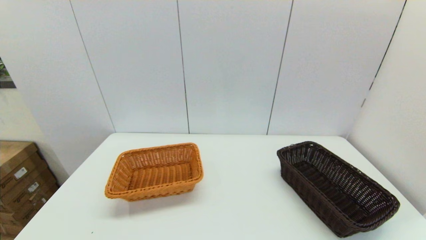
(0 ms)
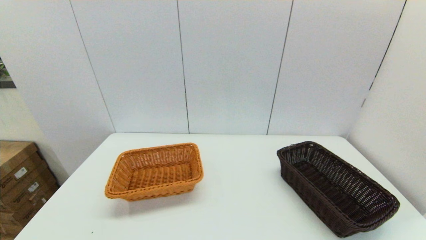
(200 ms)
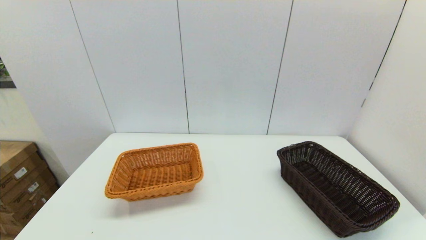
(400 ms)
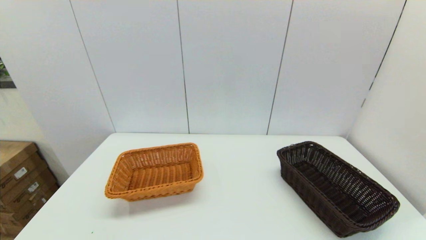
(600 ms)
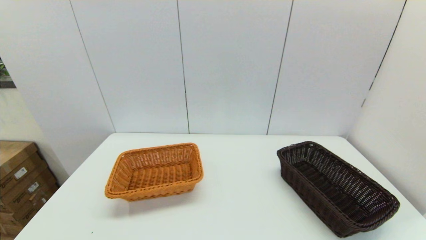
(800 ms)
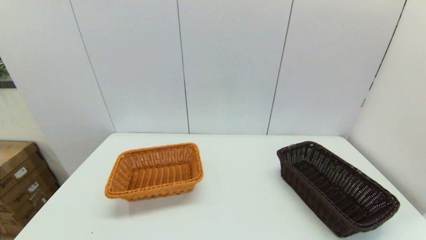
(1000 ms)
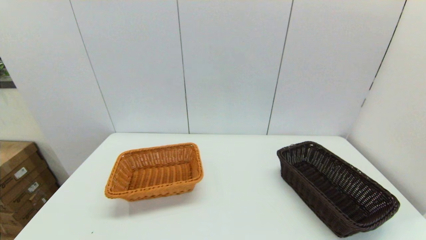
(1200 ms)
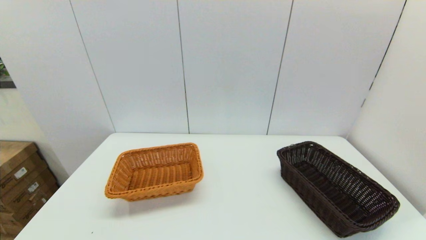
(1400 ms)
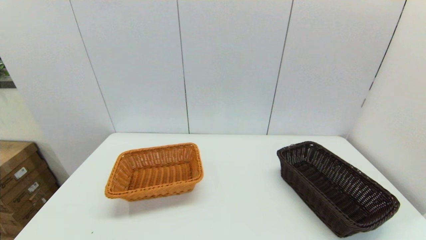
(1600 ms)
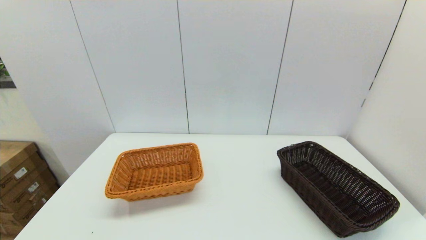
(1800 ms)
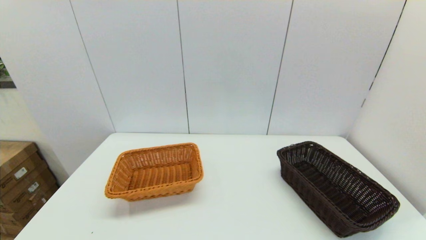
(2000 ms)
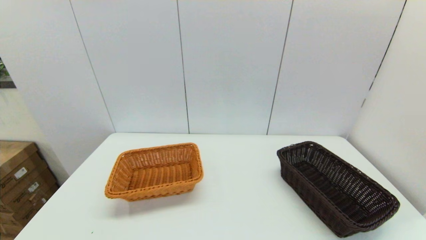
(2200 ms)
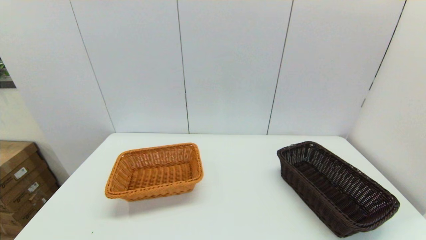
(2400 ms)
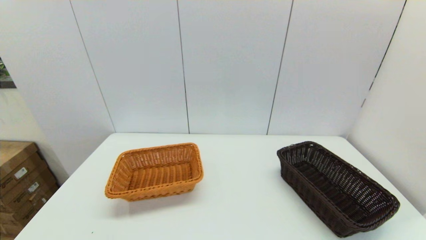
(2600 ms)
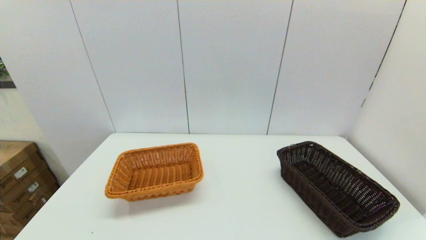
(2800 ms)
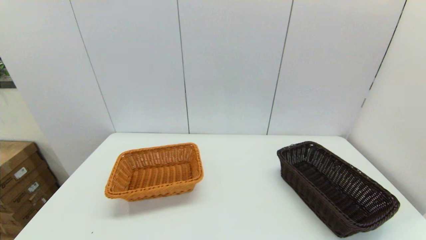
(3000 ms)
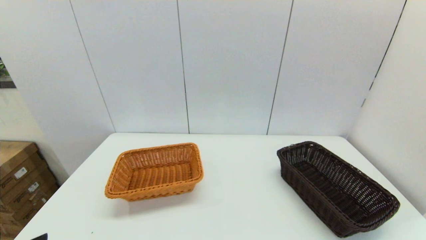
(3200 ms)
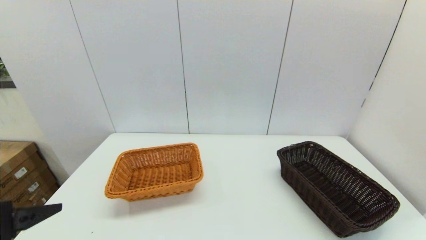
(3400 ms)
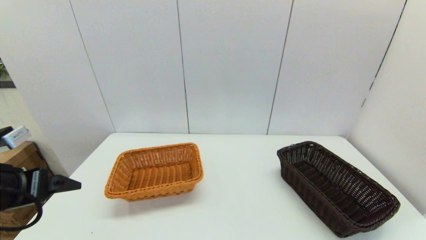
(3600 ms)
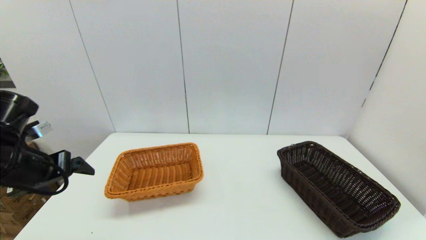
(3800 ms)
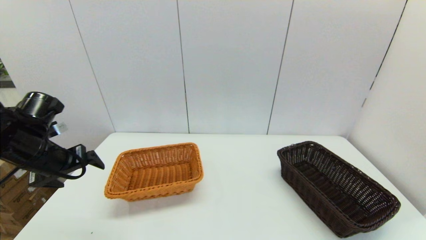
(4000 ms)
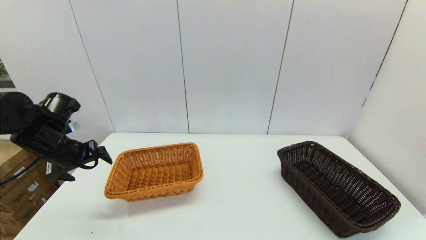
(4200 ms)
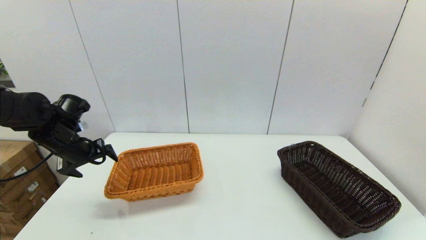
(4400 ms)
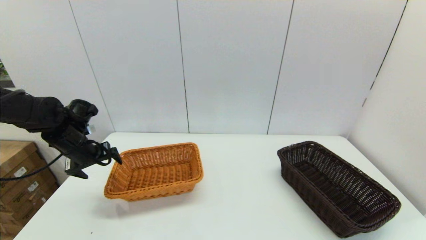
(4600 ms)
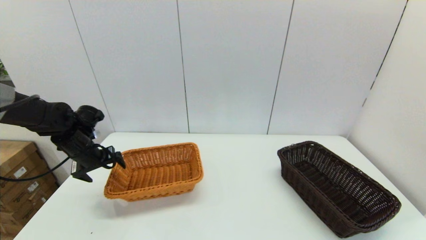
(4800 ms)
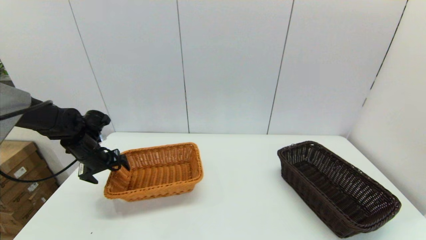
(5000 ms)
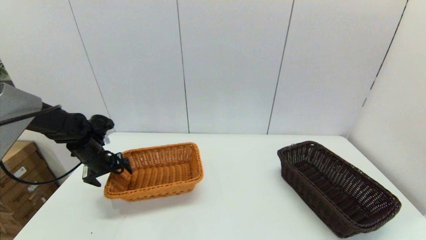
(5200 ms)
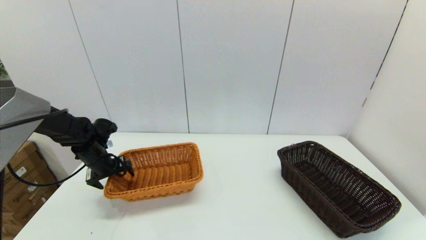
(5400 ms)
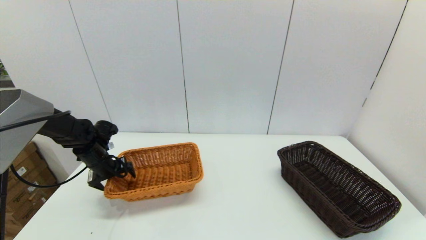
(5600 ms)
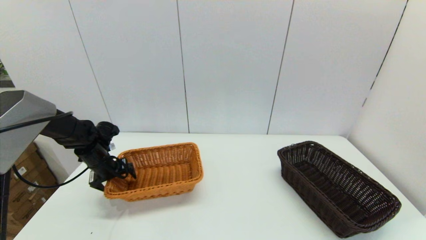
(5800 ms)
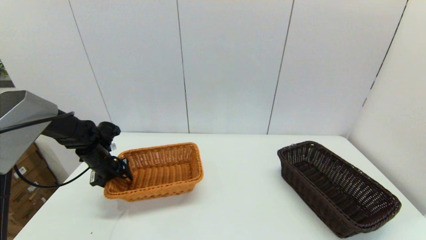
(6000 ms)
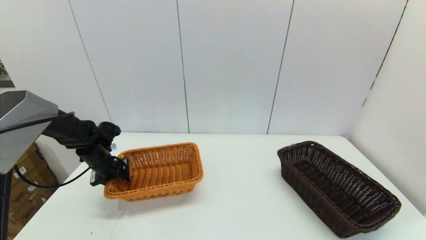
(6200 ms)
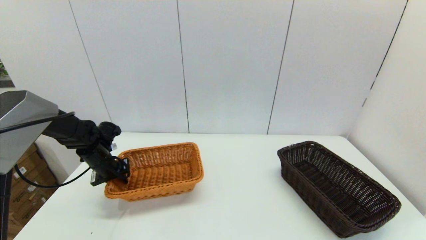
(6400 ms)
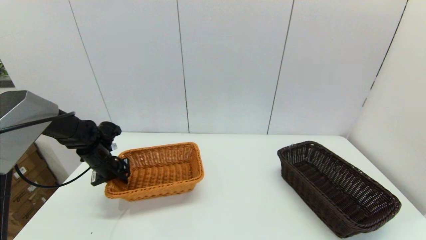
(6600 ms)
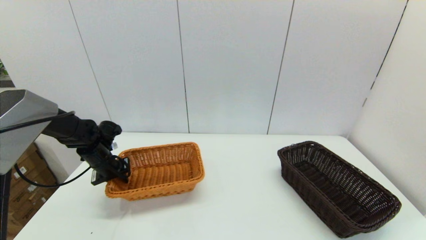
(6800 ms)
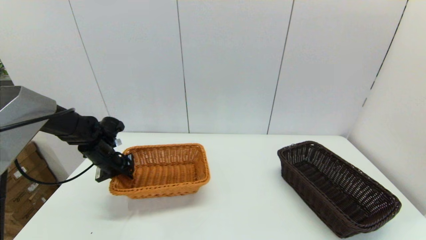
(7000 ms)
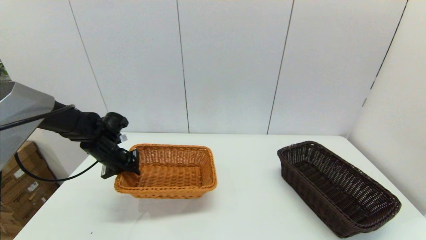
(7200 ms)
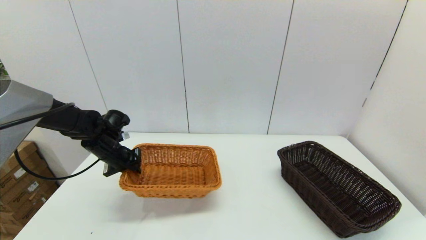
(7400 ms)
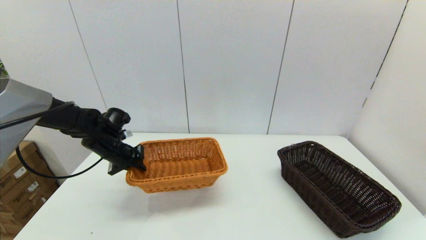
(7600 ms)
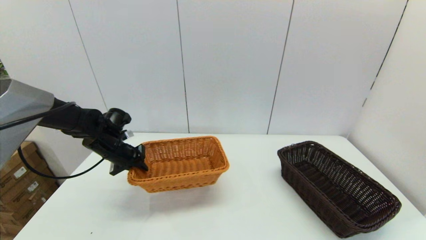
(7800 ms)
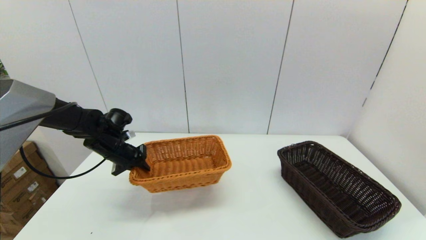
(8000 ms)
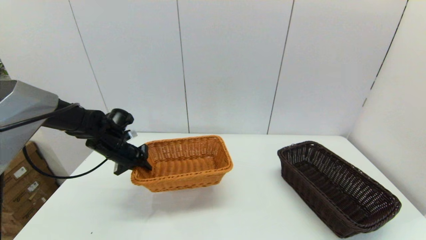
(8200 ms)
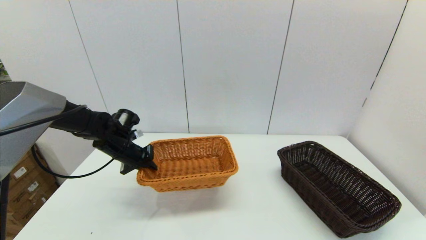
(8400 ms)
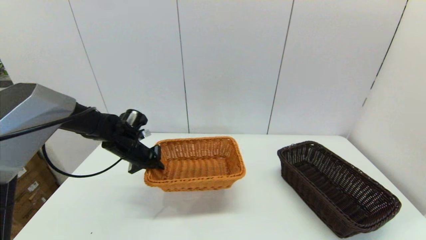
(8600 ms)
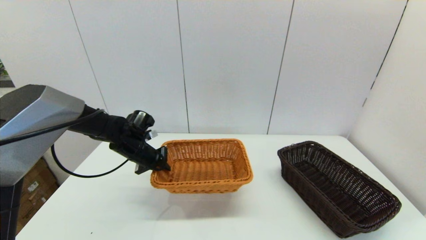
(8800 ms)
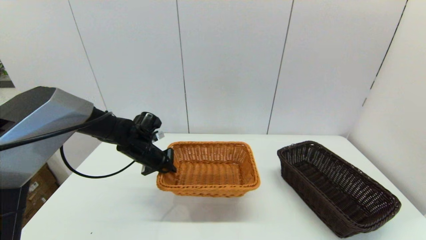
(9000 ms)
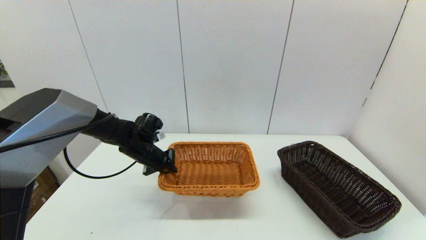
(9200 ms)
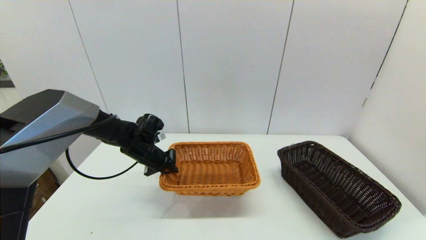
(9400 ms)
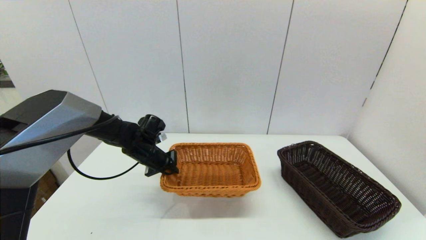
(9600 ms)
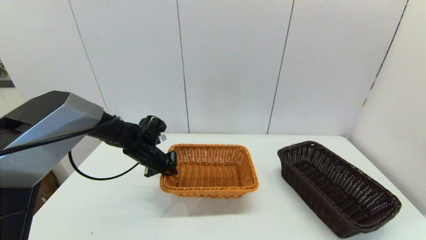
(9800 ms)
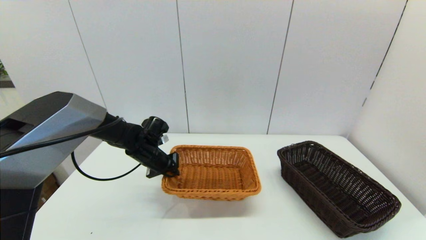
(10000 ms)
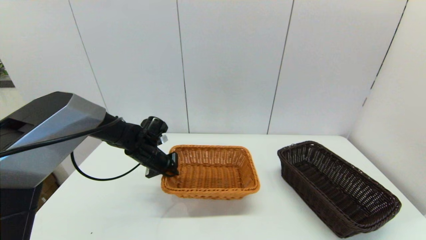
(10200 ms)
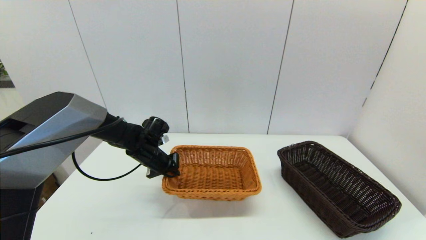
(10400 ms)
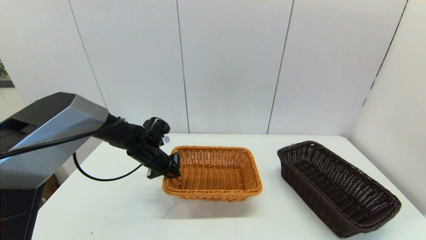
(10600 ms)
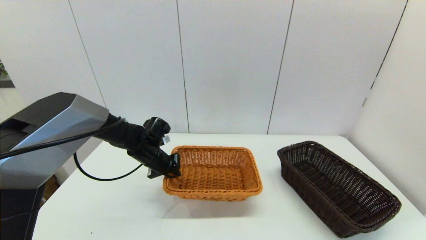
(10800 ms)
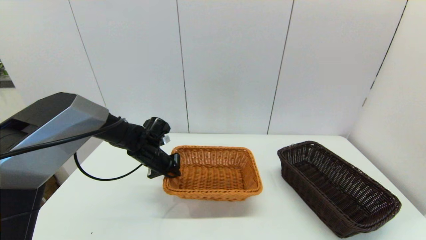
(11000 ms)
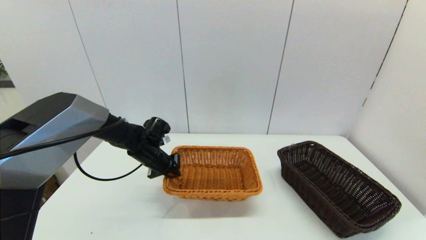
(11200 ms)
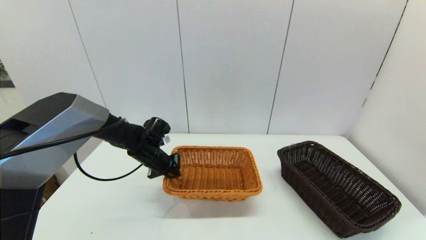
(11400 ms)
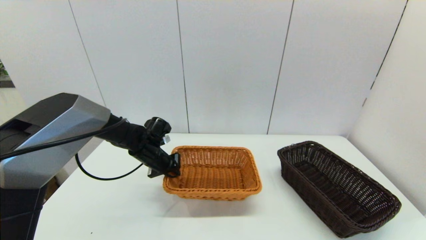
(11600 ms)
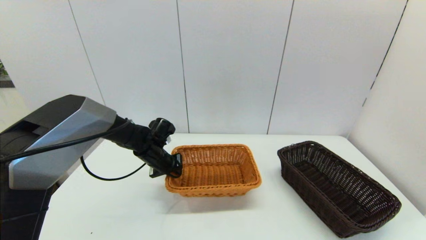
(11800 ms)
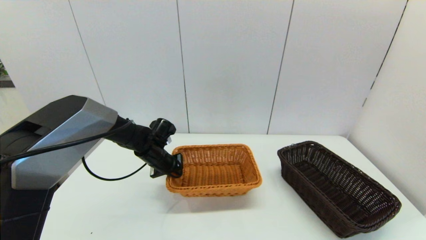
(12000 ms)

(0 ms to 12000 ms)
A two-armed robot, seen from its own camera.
Task of the whole recording: stack a basket on top of another basket.
Step, 3200 ms - 8400 ms: Grasp the light basket with the left gripper.
0 ms - 1600 ms: Both grippers stay put.
3000 ms - 4400 ms: The left gripper is displaced forward by approximately 35 cm.
4400 ms - 6000 ms: The left gripper goes roughly 10 cm downward, and closes its fingers.
6000 ms - 7600 ms: The left gripper shifts by approximately 5 cm, and closes.
7600 ms - 9000 ms: The left gripper travels to the right by roughly 10 cm.
9000 ms - 12000 ms: There are only small adjustments of the grippers.

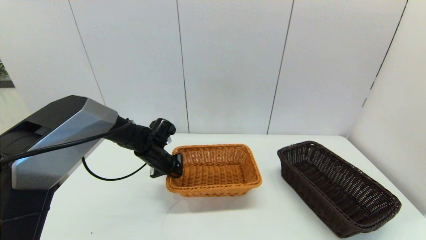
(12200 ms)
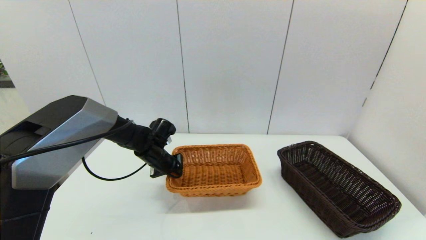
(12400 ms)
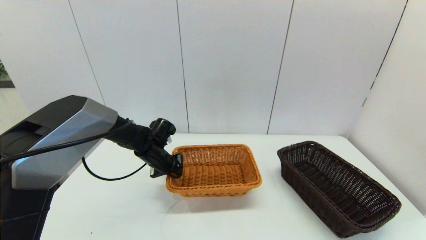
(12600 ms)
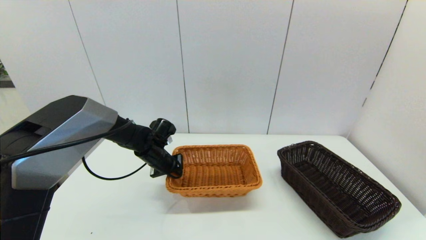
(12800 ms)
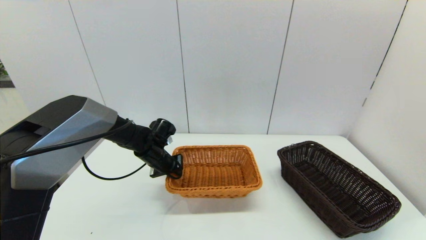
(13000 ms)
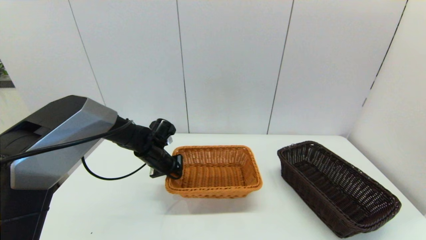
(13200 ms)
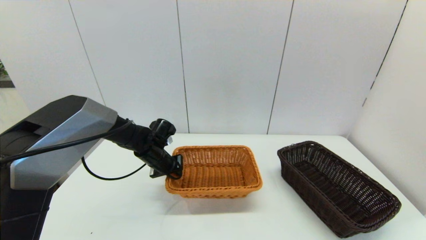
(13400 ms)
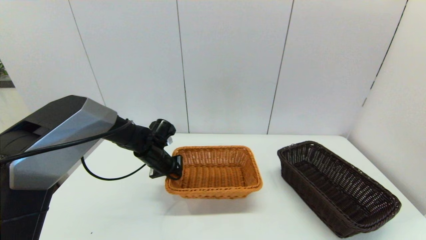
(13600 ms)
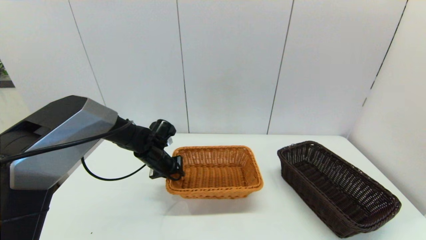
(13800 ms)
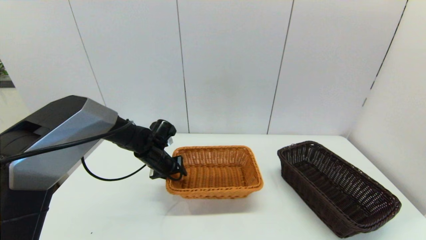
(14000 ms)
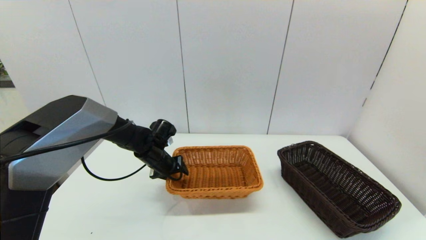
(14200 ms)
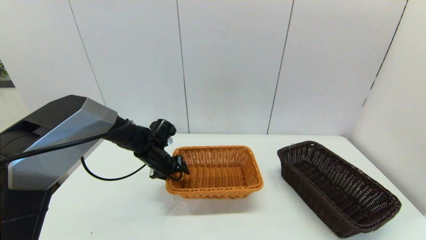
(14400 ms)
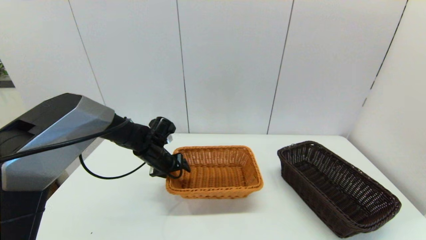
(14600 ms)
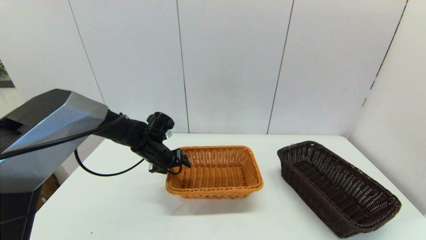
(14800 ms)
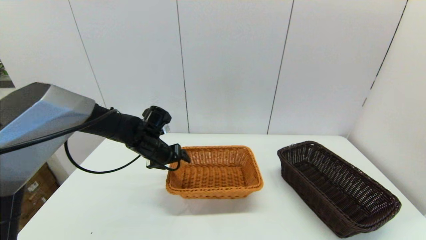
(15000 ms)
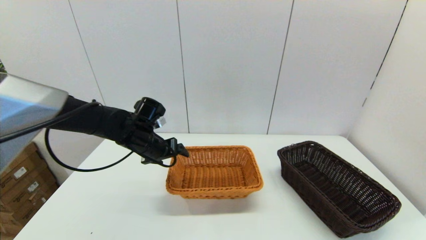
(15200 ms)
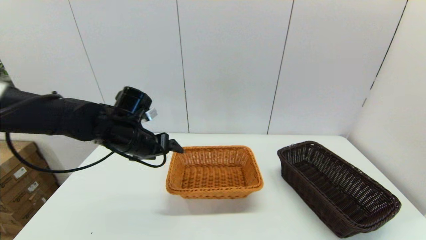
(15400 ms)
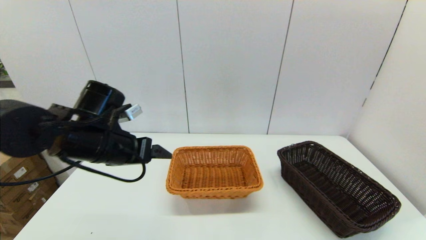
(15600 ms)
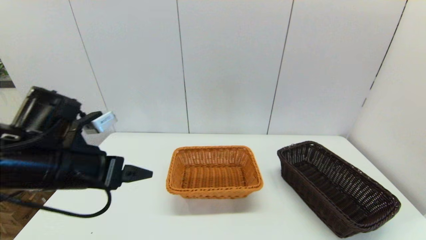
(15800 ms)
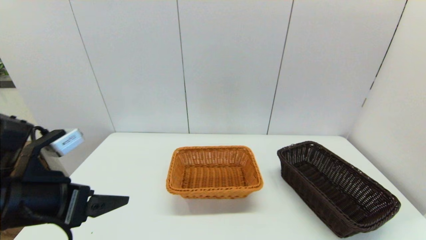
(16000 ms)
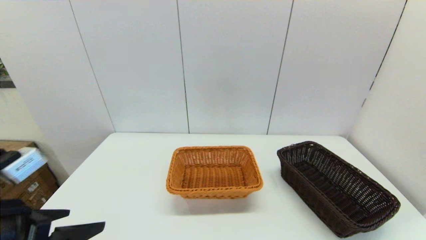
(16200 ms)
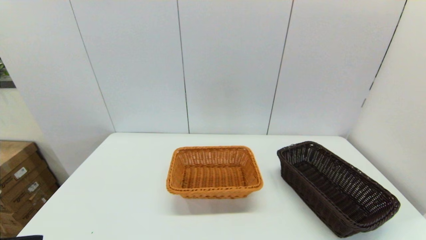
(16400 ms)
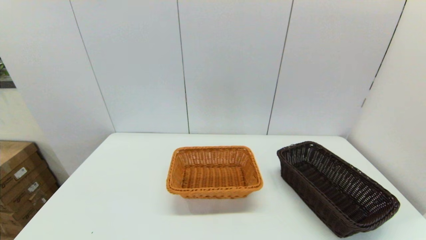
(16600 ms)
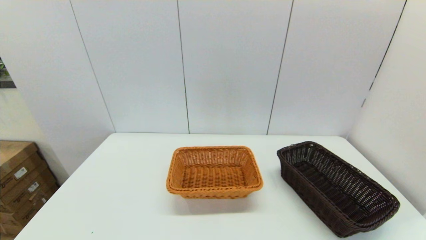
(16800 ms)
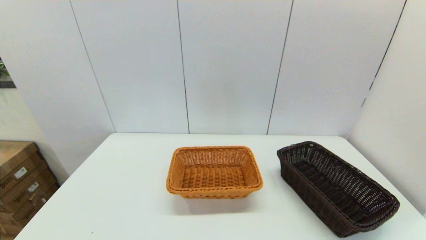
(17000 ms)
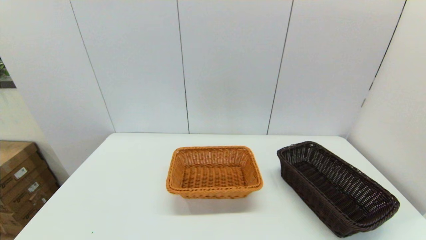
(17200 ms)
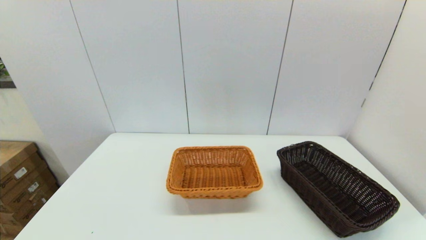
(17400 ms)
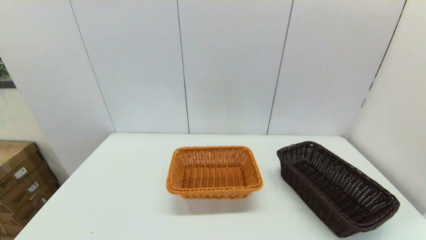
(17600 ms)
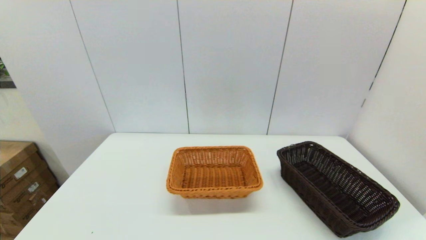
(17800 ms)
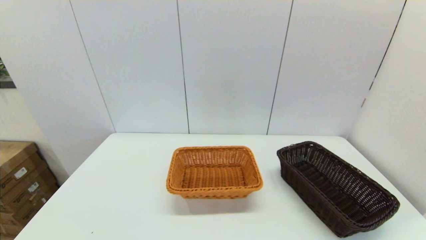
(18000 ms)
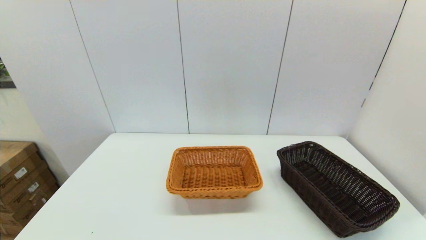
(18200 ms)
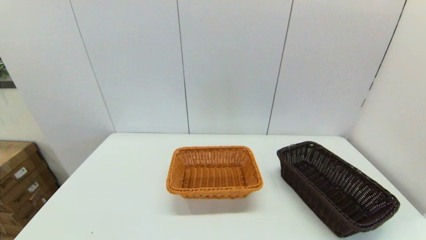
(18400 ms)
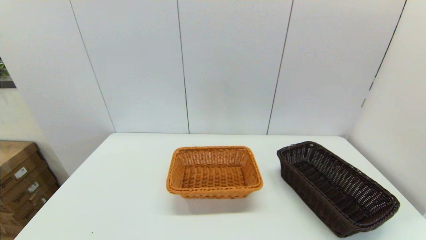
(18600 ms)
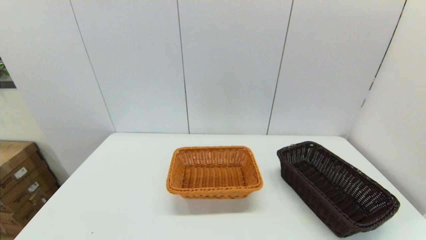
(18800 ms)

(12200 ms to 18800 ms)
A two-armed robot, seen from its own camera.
Task of the whole recording: stack a basket on top of another basket.
Step, 12200 ms - 15400 ms: Place the light basket on the middle of the table with the left gripper.
12200 ms - 13800 ms: The left gripper opens its fingers.
13800 ms - 15400 ms: The left gripper goes some 15 cm upward and backward, and opens its fingers.
15400 ms - 17200 ms: The left gripper shifts about 35 cm backward.
